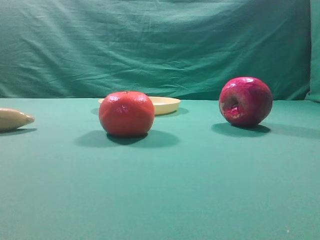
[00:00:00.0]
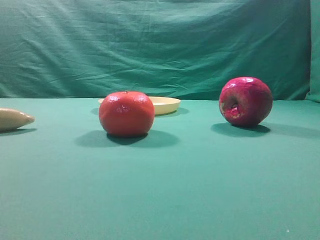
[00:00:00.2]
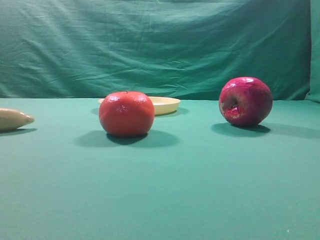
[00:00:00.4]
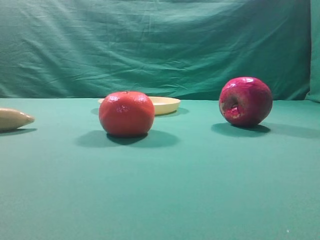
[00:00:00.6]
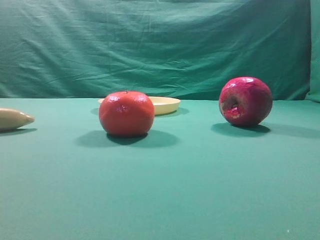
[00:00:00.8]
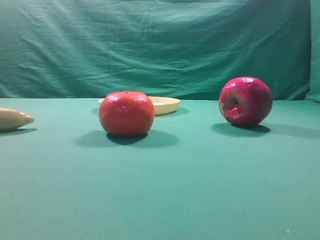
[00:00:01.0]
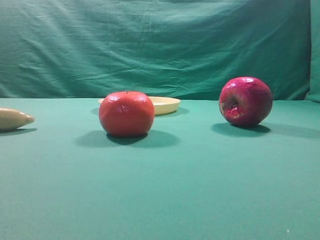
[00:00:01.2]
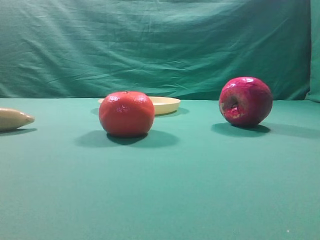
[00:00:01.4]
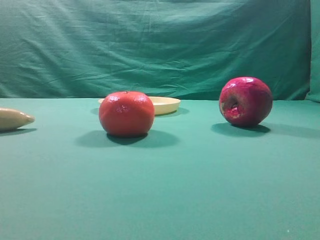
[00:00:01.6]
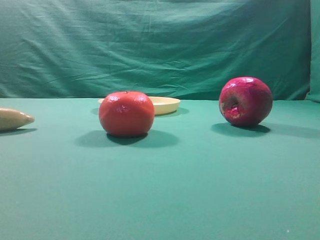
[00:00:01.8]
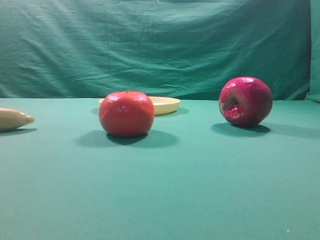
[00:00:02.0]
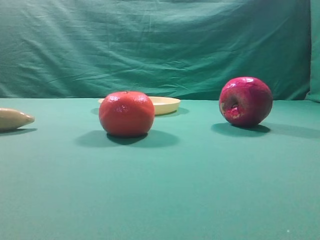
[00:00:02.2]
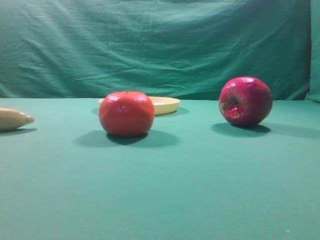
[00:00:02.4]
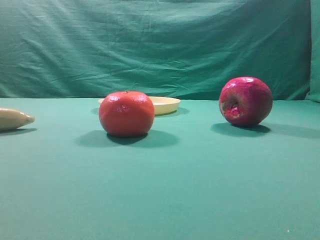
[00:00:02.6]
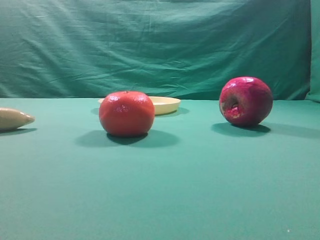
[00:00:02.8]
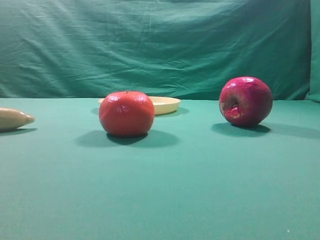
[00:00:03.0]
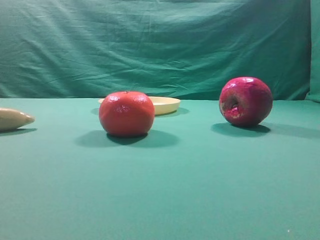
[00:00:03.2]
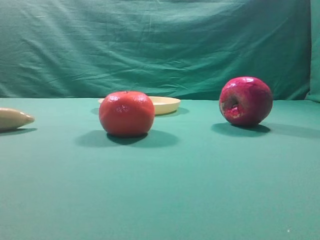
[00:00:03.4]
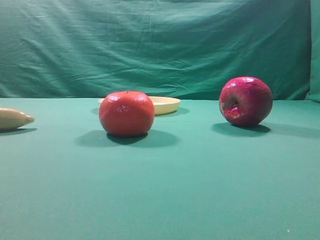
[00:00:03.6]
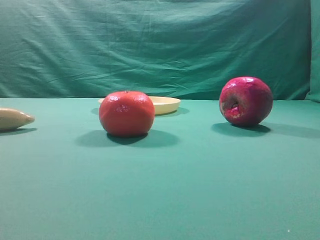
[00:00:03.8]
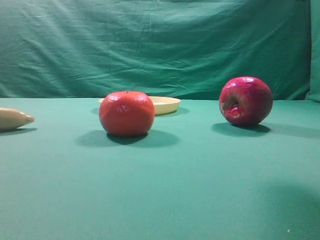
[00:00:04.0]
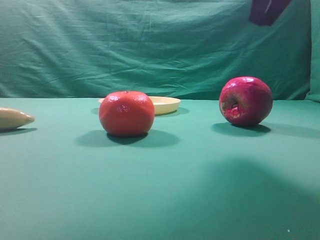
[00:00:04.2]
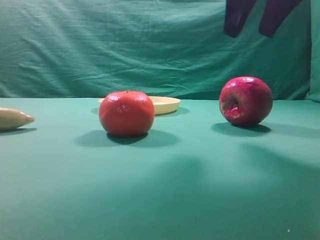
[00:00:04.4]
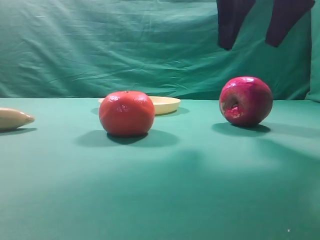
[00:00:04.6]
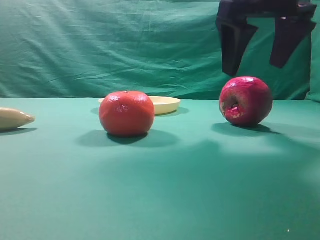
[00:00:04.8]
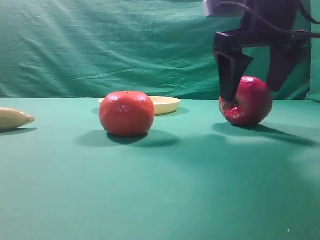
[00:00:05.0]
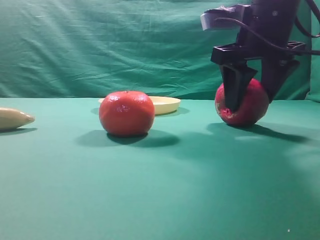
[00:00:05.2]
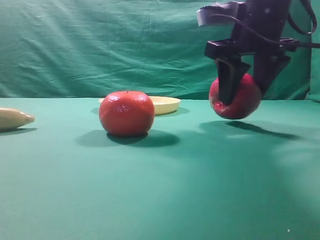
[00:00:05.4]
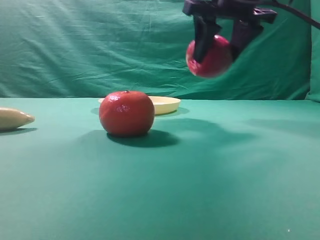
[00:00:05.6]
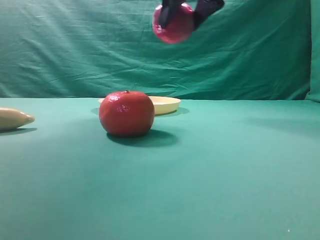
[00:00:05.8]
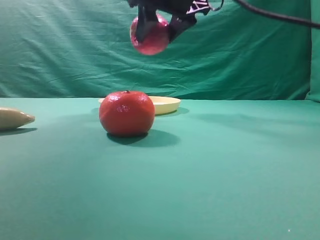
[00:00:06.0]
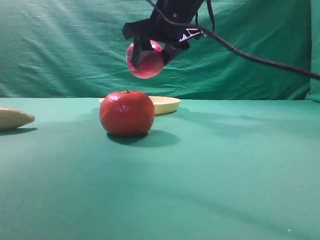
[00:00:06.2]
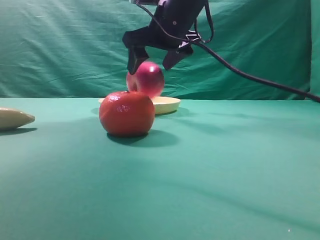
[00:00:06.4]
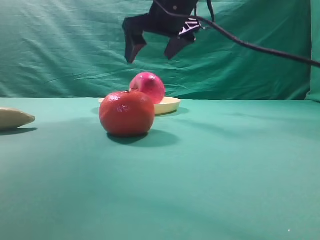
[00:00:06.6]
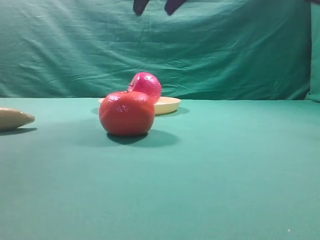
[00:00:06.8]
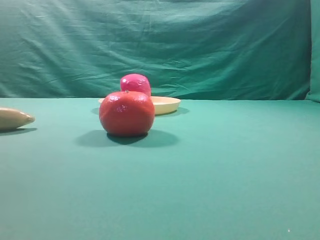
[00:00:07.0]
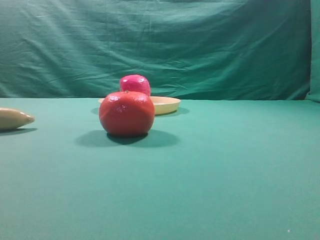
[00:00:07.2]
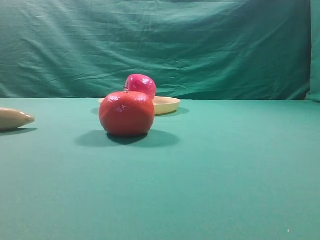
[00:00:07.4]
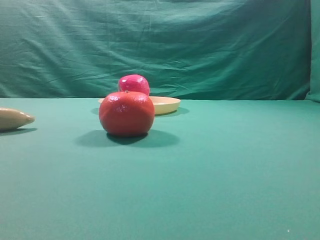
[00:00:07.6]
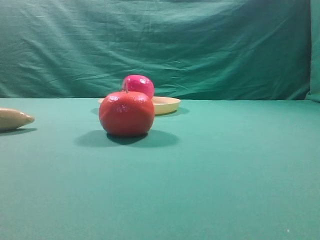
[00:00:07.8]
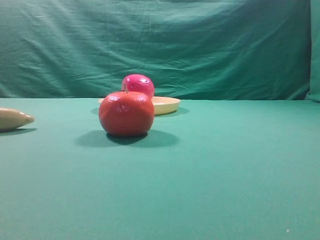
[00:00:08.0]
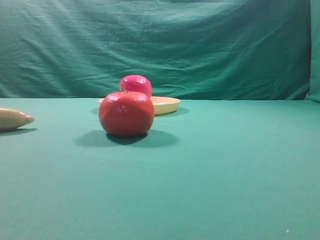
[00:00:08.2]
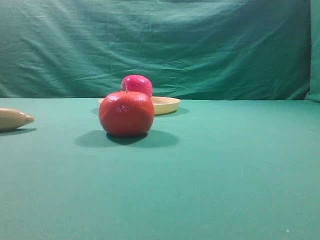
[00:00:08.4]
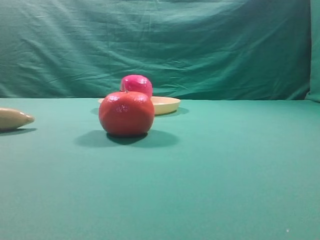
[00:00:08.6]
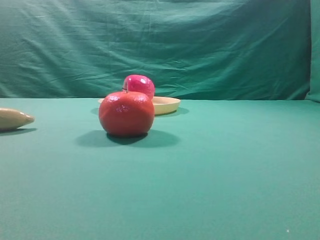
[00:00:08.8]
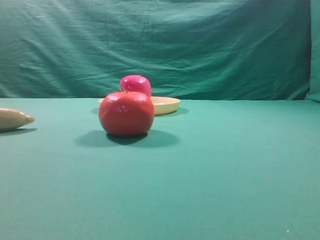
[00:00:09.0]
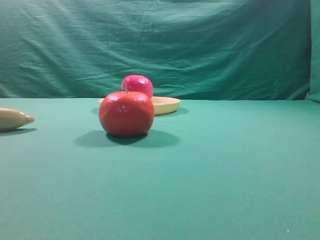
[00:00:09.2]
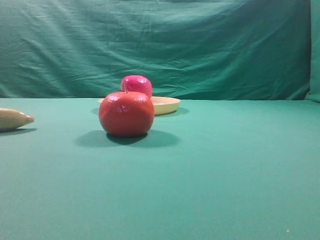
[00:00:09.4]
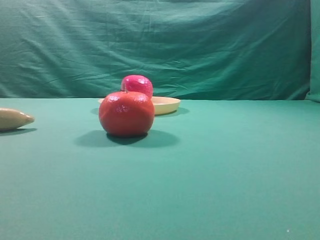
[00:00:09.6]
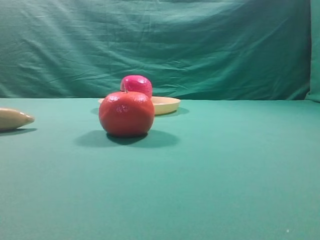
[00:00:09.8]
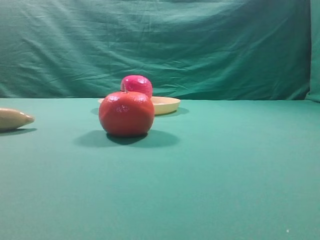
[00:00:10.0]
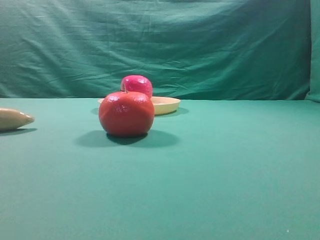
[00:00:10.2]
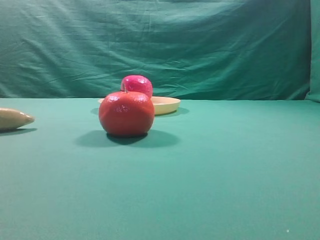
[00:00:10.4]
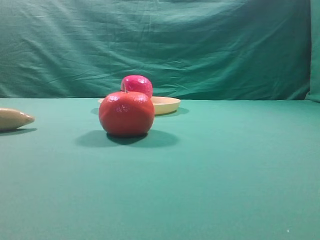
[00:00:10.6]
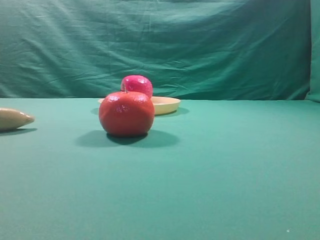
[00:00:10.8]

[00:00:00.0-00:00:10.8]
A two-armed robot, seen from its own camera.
Task of the whole recording: grasp the apple and place it into the yellow plate.
Step, 00:00:00.0 to 00:00:05.4: Grasp the fruit that can keep the doctor away.
Step, 00:00:05.6 to 00:00:06.6: Place the picked object into the yellow plate.
